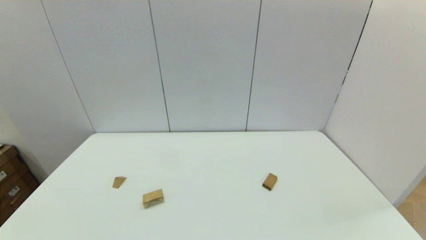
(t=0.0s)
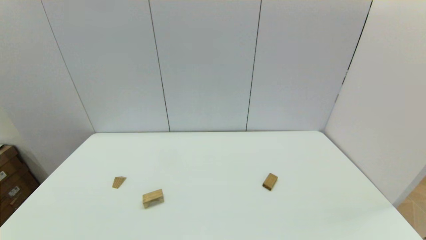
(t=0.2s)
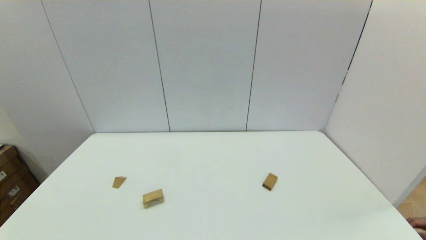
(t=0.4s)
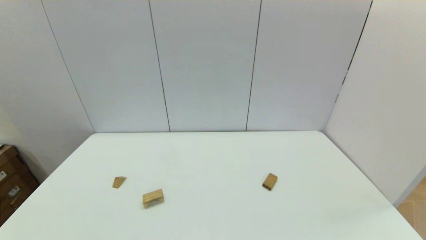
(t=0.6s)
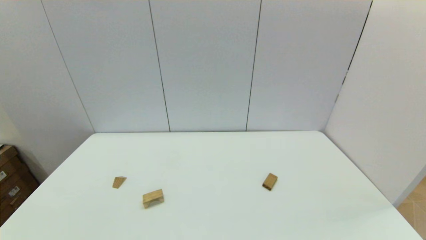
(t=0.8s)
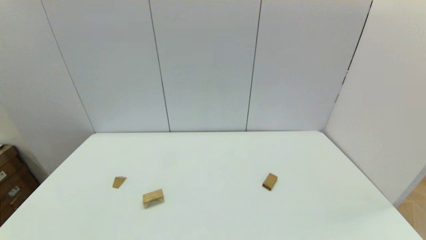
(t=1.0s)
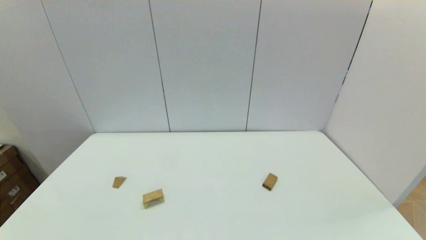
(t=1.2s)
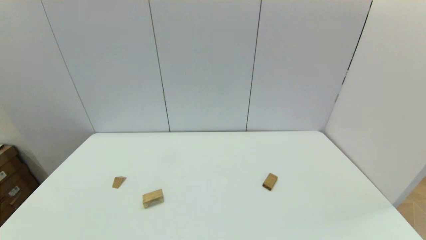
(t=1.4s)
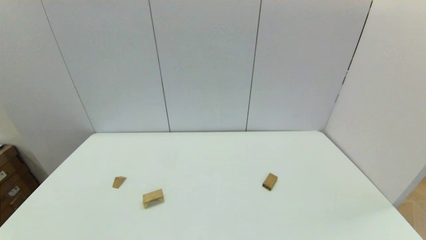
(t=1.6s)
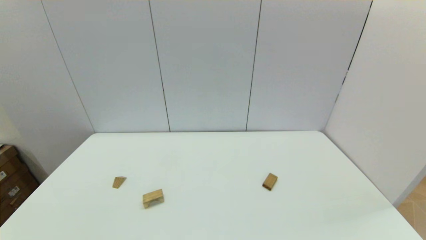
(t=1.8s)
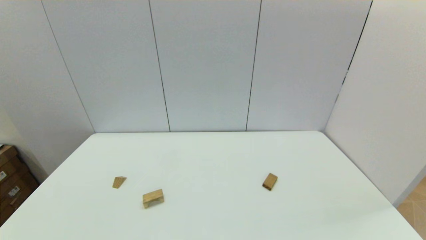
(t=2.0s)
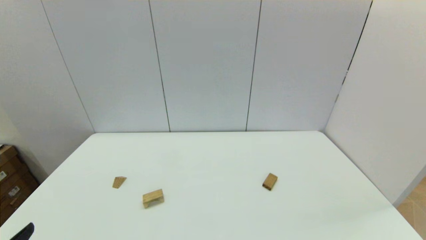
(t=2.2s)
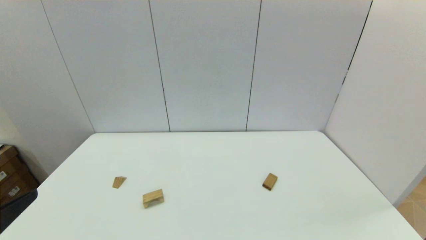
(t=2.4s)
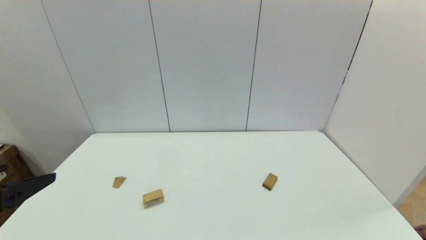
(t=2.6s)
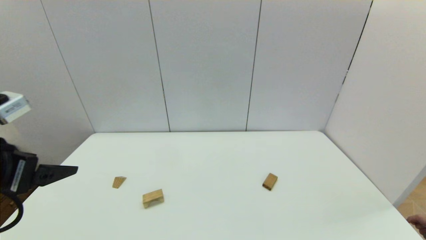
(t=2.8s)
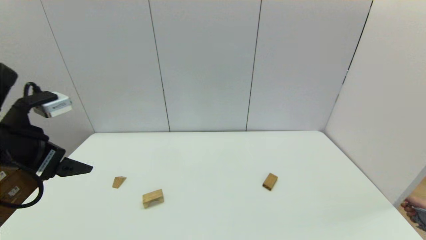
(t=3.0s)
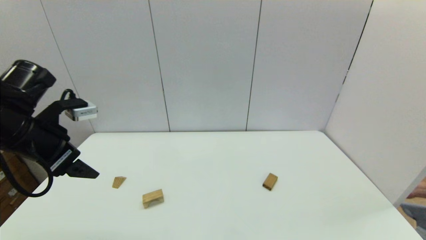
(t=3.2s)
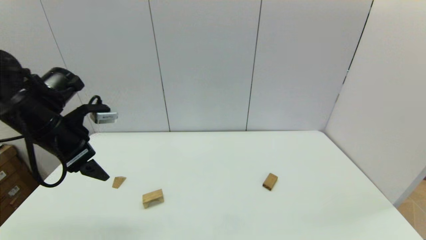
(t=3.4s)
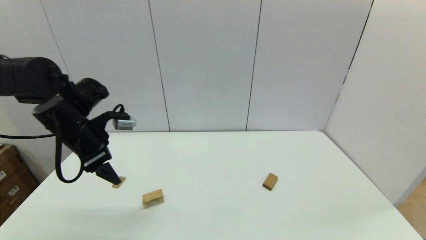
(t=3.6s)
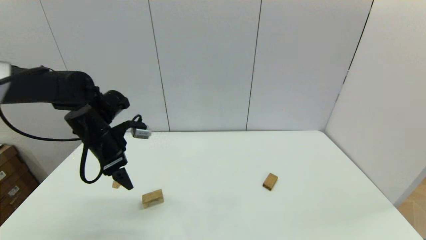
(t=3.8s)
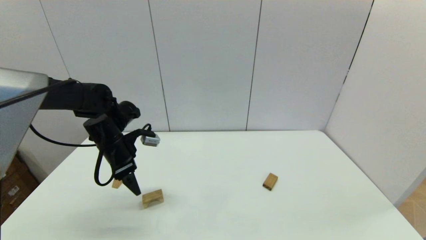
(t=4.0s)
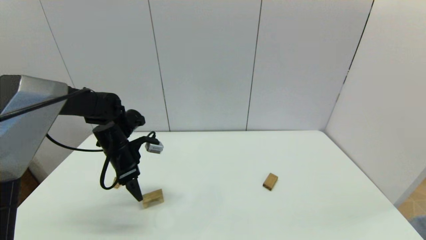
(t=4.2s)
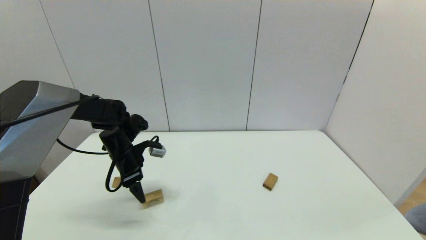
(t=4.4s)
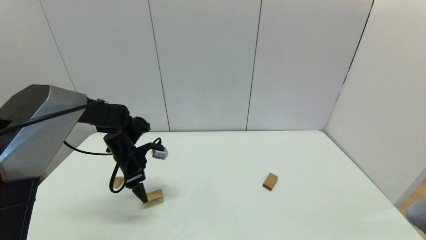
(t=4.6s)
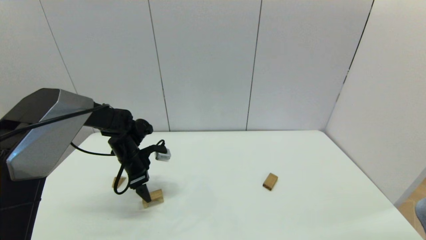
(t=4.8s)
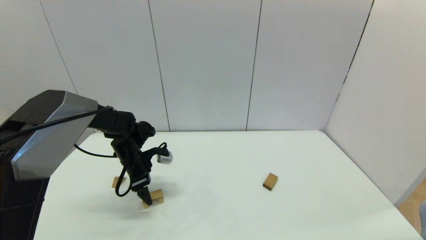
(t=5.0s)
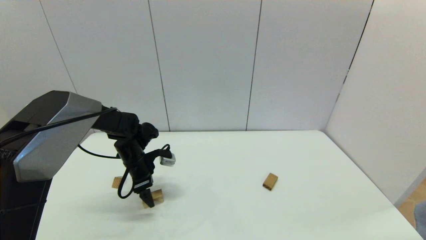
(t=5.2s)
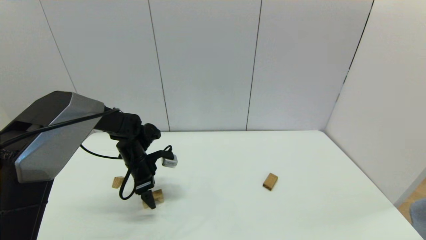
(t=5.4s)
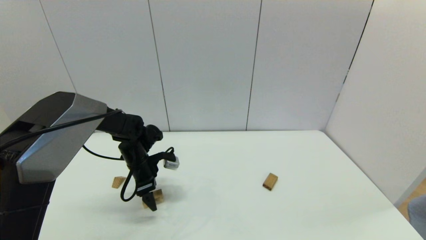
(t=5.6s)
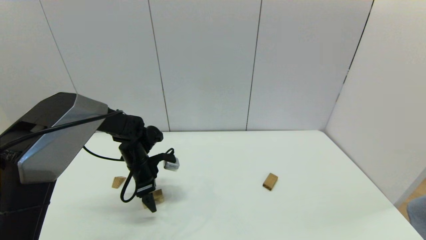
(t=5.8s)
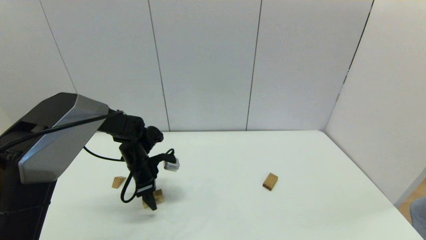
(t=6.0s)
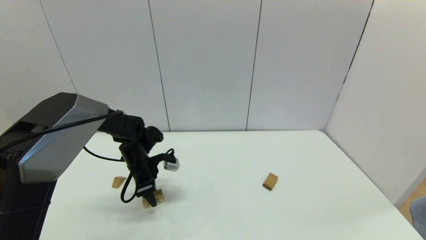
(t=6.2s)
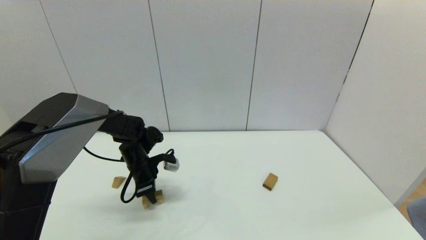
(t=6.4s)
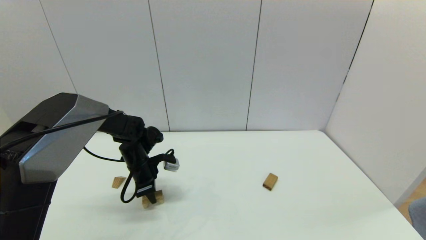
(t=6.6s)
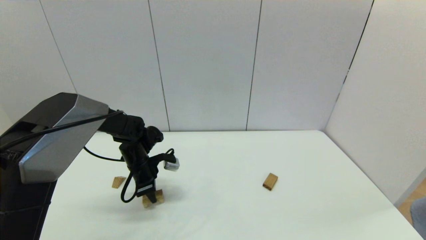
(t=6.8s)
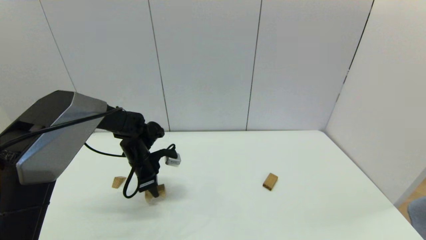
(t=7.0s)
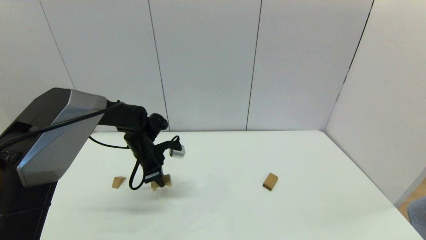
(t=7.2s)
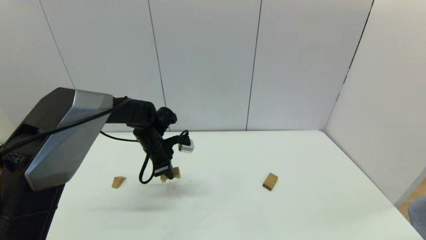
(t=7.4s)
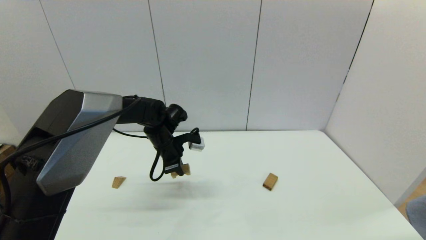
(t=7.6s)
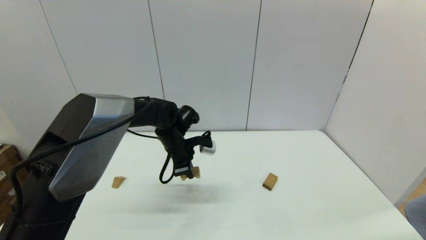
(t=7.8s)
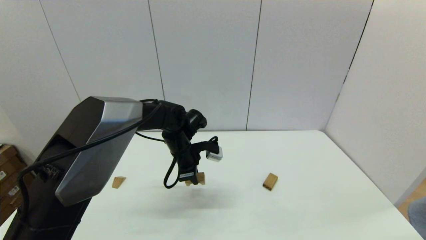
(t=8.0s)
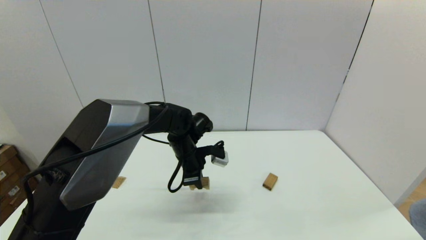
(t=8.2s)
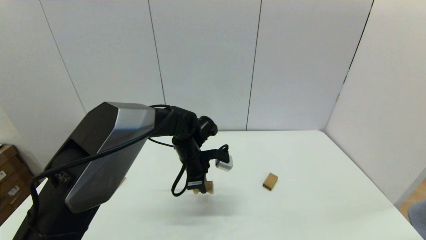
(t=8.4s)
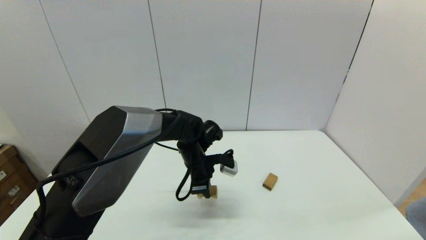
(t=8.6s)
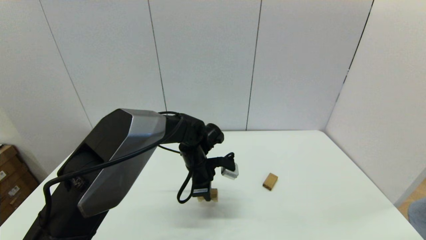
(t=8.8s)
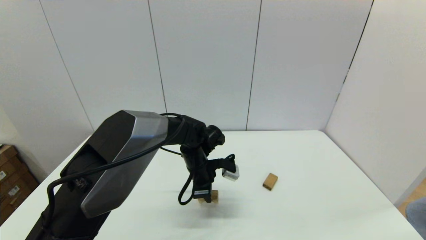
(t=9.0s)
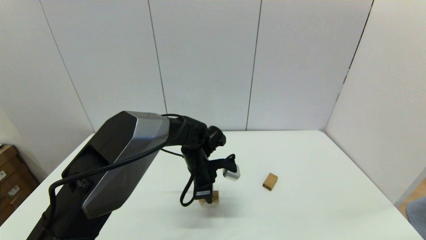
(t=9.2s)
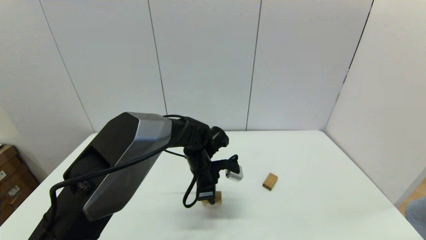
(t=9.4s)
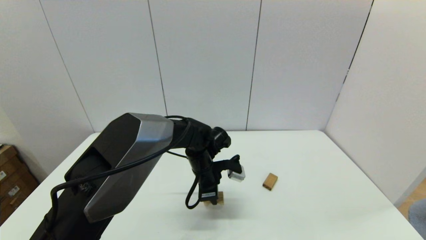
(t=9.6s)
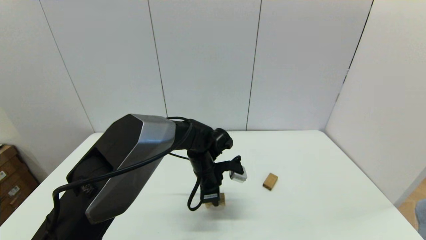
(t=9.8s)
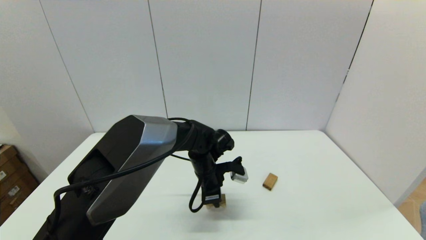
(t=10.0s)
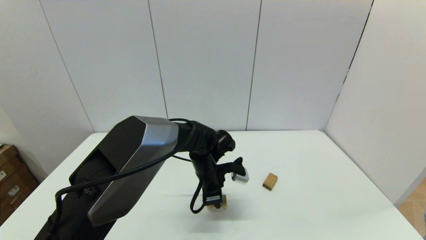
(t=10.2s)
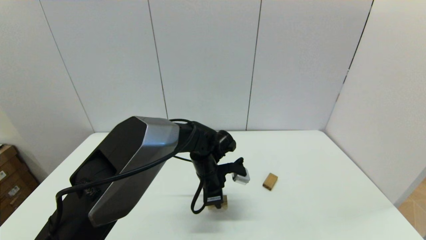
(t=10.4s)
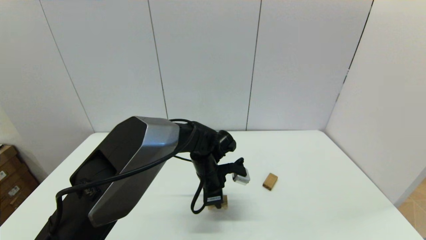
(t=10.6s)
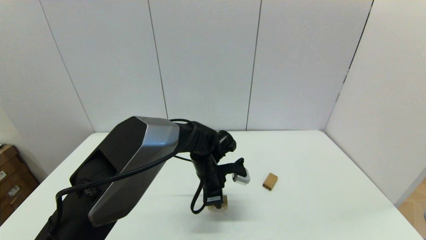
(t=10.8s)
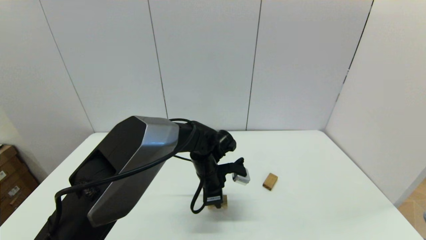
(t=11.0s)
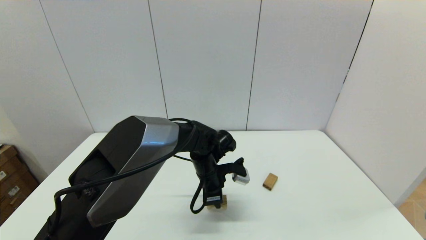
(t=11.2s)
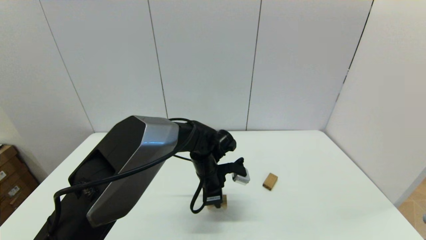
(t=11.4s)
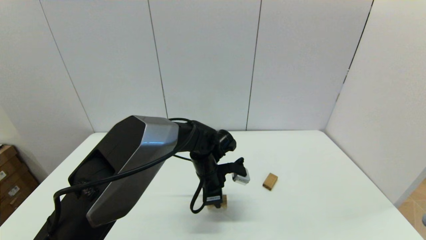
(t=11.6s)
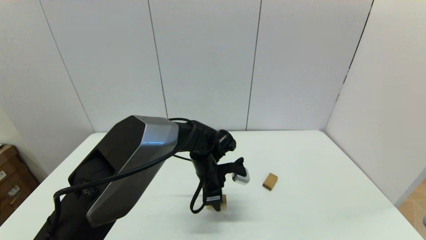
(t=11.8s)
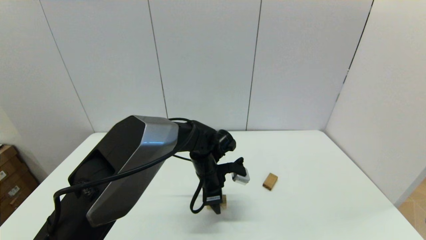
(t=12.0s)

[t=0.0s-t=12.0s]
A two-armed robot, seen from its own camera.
Task of the whole recording: place the arched building blocks in the center of the table, set up the rectangular building blocks, and then set up the triangular building blocks.
Step, t=2.2s to t=6.4s: Grasp the arch-shaped block with the left gripper.
t=0.0s to t=1.6s: Both grippers stay about where they are.
t=1.6s to t=3.0s: The left gripper heads forward and upward, covering about 30 cm.
t=3.0s to t=4.4s: The left gripper heads forward and downward, covering roughly 25 cm.
t=4.4s to t=6.0s: The left gripper ends up approximately 5 cm from where it was.
t=6.0s to t=7.6s: The left gripper moves to the right, some 10 cm, and closes its fingers.
t=7.6s to t=9.0s: The left gripper moves to the right, some 10 cm.
t=9.0s to t=10.4s: The grippers make only small movements.
t=10.4s to t=12.0s: The left gripper opens up.

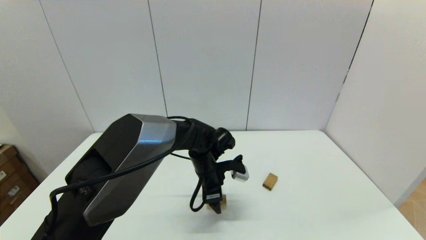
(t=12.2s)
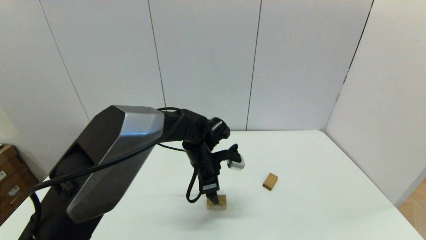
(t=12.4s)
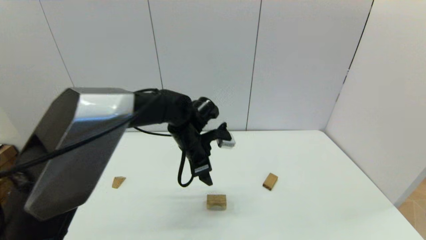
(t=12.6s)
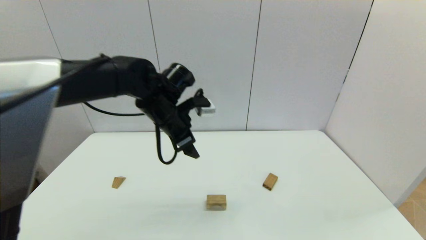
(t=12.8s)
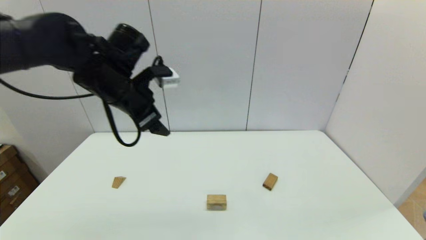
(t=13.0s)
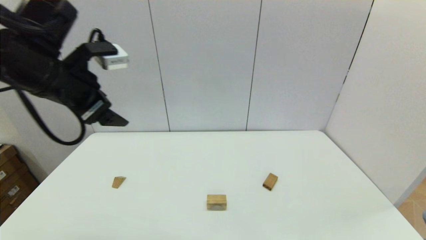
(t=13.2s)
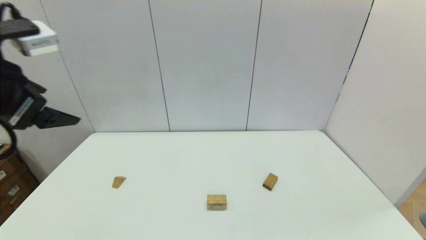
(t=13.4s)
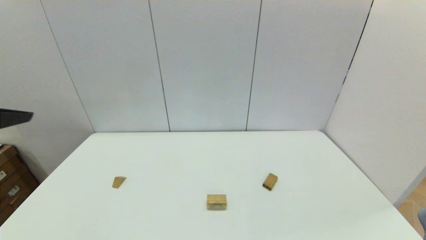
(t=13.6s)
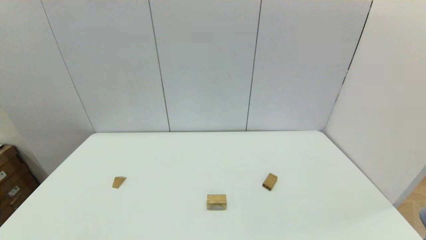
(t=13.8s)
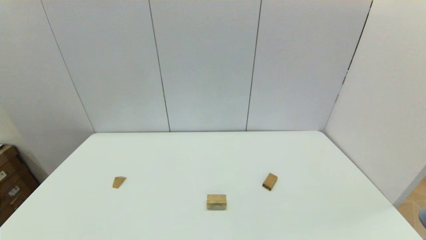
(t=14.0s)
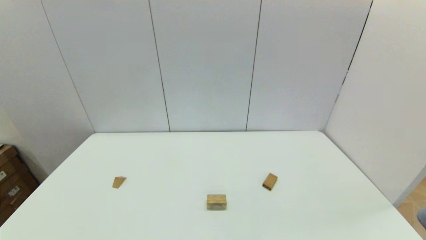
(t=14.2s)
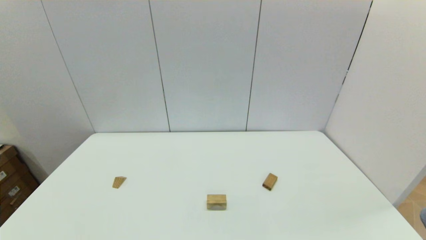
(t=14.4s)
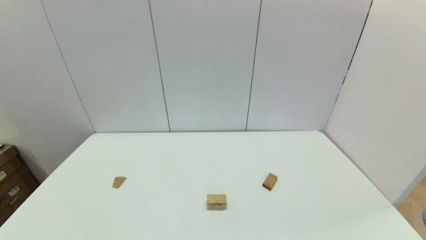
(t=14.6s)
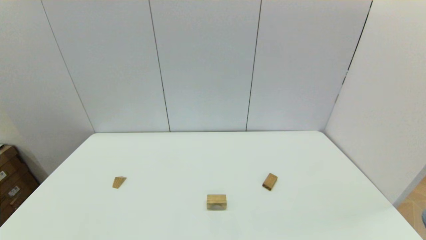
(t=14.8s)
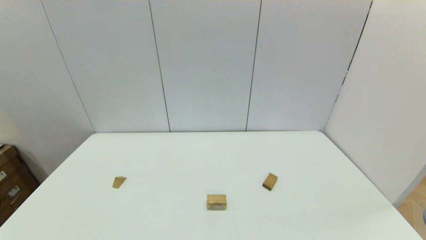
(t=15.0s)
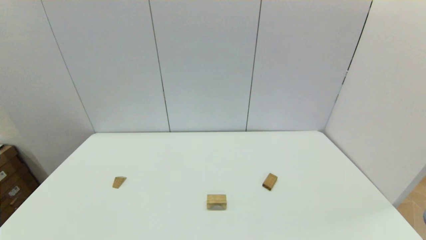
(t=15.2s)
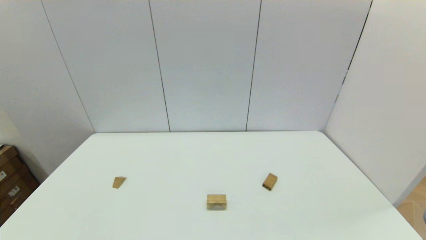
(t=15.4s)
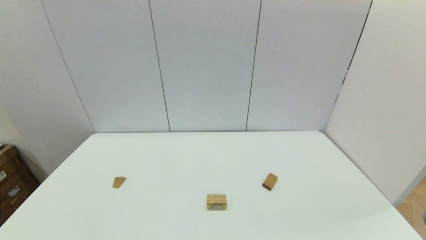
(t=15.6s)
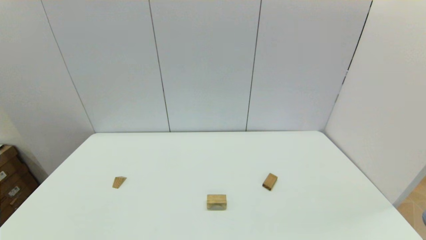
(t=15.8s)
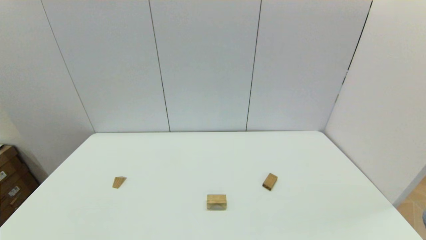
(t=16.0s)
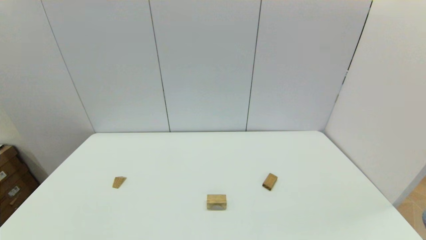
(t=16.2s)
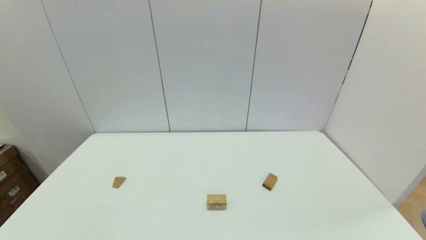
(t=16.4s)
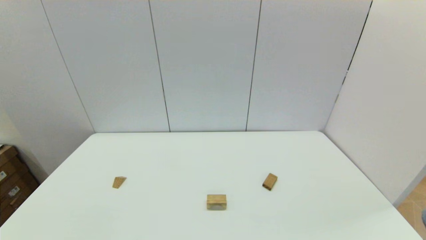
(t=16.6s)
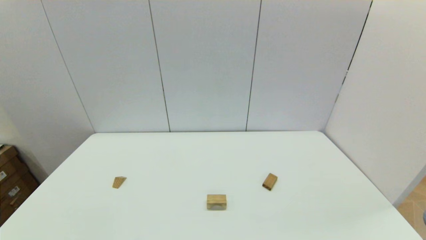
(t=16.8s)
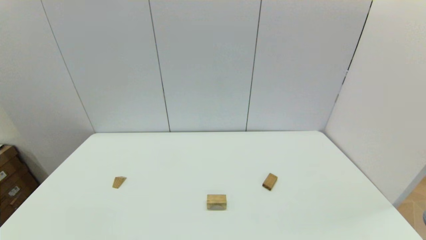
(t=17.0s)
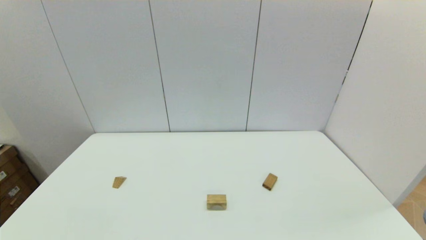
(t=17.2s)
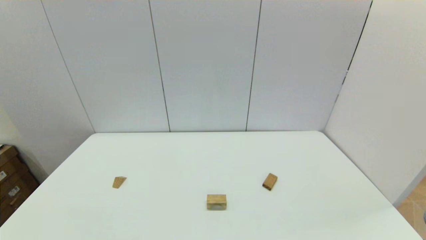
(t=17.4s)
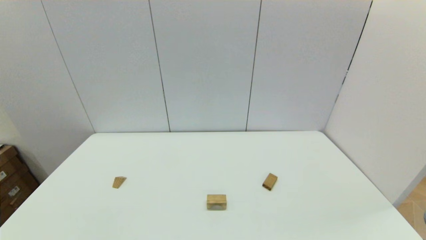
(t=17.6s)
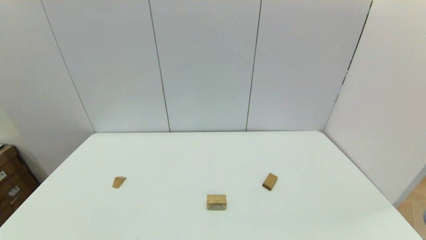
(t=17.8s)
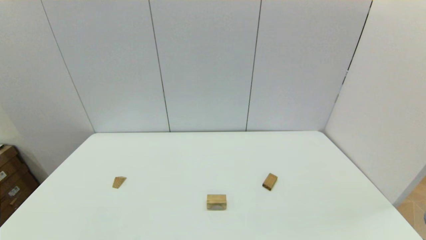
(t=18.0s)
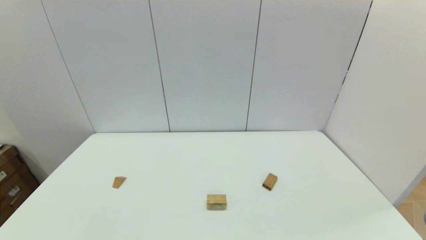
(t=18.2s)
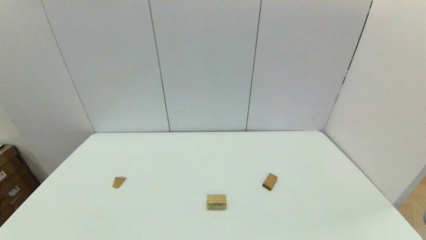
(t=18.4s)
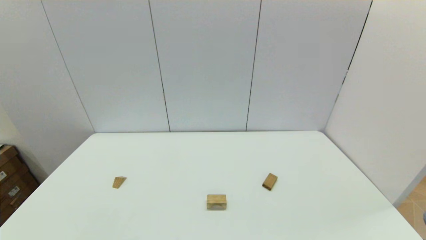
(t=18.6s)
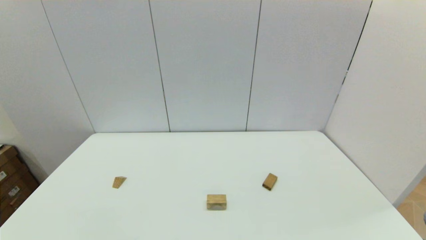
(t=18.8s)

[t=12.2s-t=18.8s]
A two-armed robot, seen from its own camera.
Task of the whole recording: place the arched building blocks in the center of the table, set up the rectangular building blocks, and then set up the triangular building blocks.
t=12.2s to t=13.8s: The left gripper travels upward, to the left and backward by some 50 cm.
